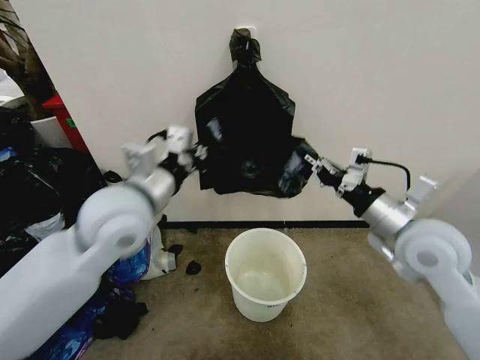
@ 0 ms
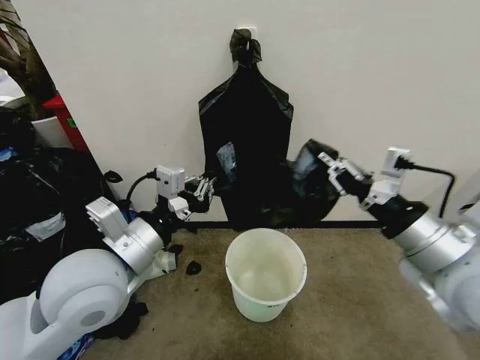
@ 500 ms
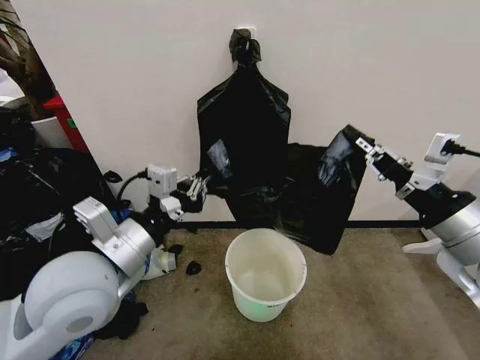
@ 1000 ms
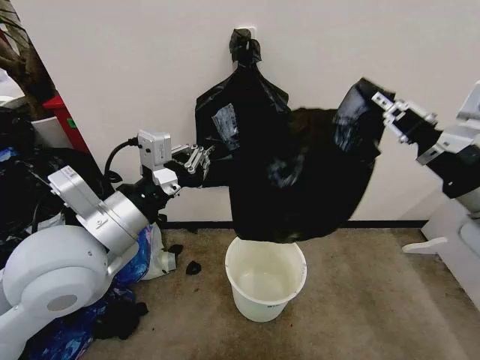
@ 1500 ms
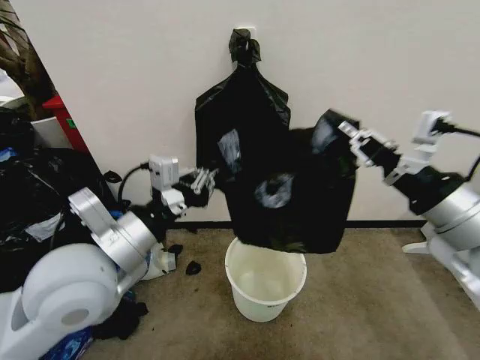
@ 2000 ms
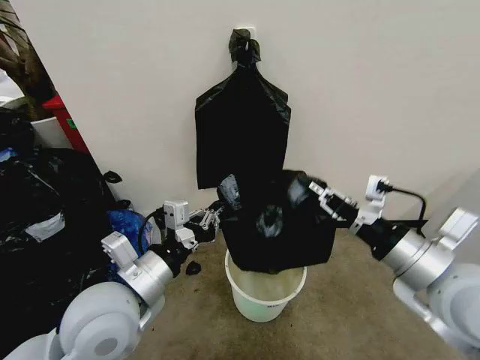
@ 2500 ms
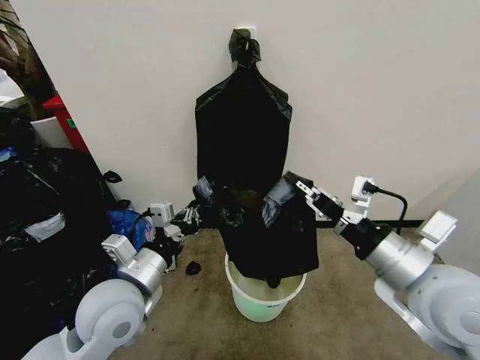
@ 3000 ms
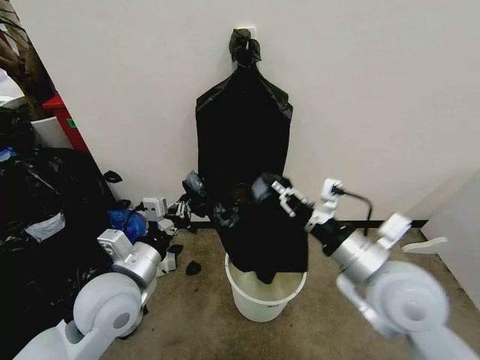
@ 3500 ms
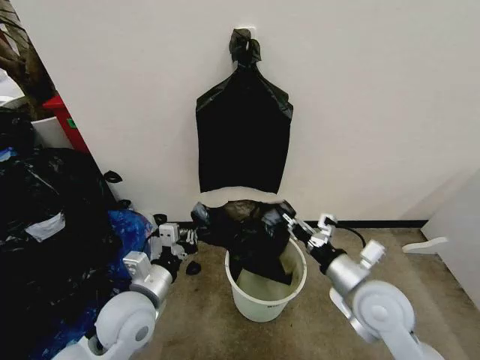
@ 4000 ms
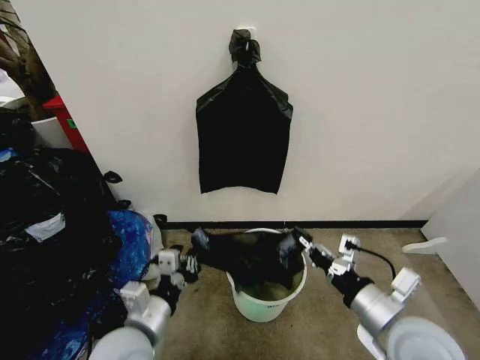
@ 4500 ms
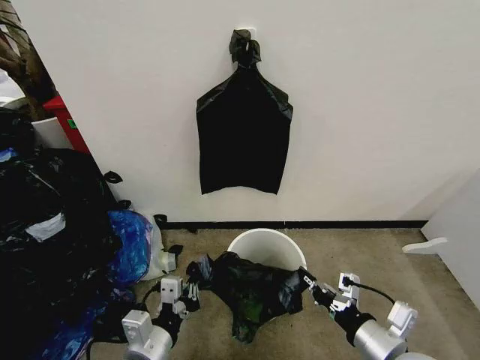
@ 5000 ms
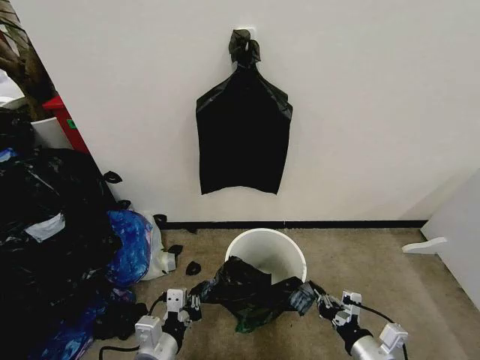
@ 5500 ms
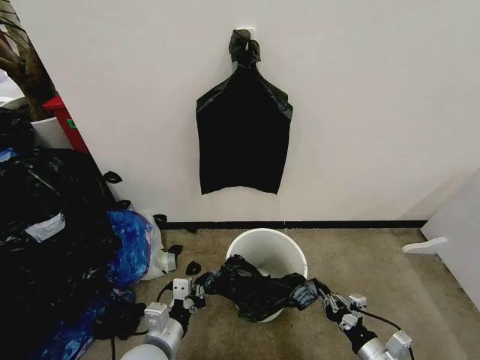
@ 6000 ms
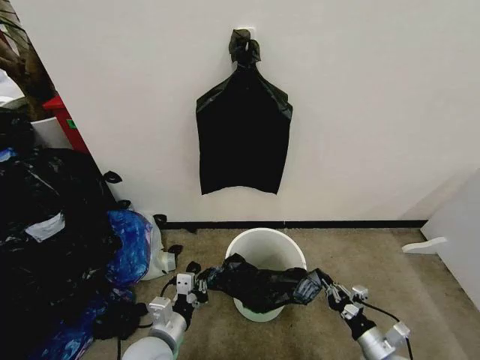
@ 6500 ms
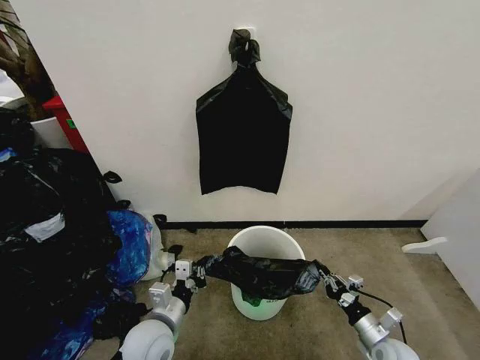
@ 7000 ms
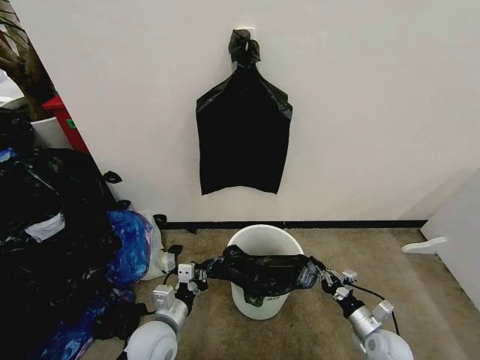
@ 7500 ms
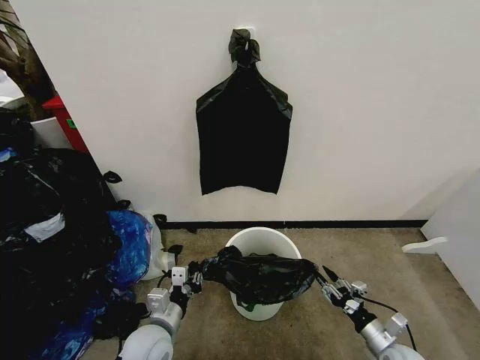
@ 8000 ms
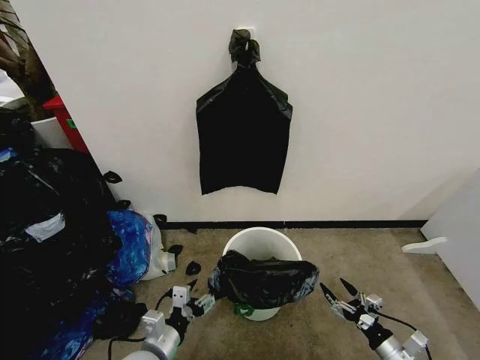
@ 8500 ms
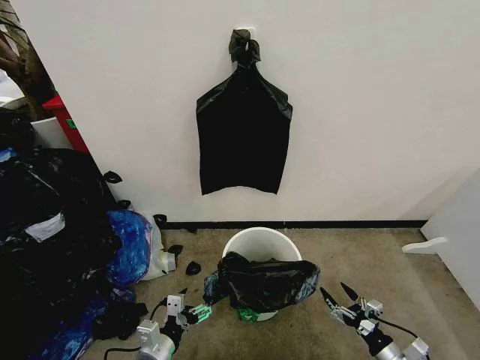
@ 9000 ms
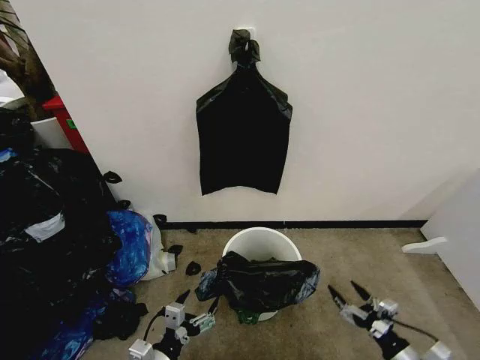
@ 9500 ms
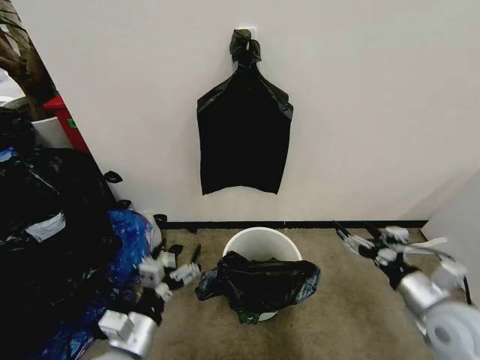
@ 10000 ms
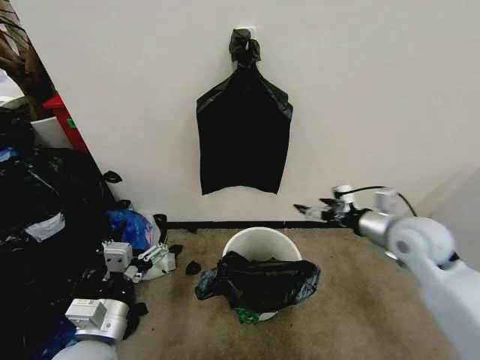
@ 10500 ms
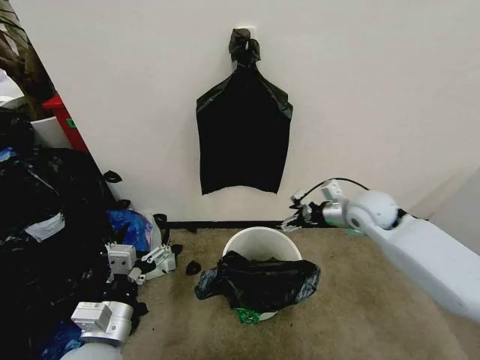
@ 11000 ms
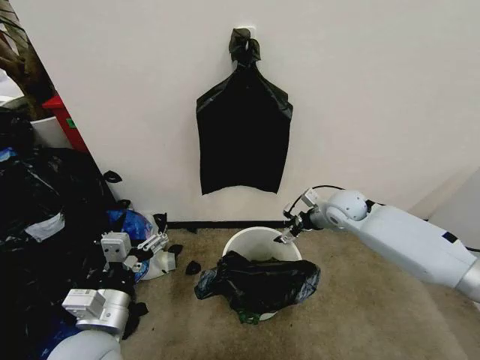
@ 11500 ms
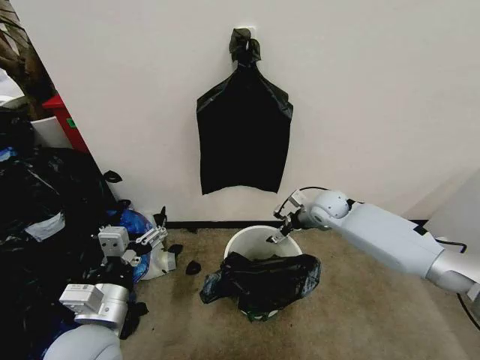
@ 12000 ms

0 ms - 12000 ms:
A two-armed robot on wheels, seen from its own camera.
Task of the whole recording: Place the garbage bag over the trash bin.
0 ms - 2000 ms: The left gripper shifts roughly 10 cm backward. The right gripper travels upward and backward by roughly 10 cm.
2000 ms - 4000 ms: Both grippers move downward, about 20 cm.
4000 ms - 6000 ms: The left gripper heads downward and backward, covering about 10 cm; the right gripper travels downward, backward and to the right by some 25 cm.
6000 ms - 8000 ms: The right gripper moves downward, forward and to the right, roughly 10 cm, and opens, while the left gripper ends up about 5 cm from where it was.
8000 ms - 10000 ms: The right gripper is displaced upward by about 25 cm, and opens; the left gripper goes some 10 cm upward and backward, and opens up.
10000 ms - 12000 ms: The left gripper travels upward by approximately 5 cm. Meanwhile the right gripper heads forward and to the left, covering approximately 35 cm.

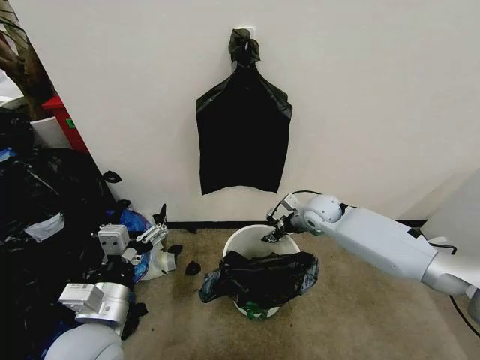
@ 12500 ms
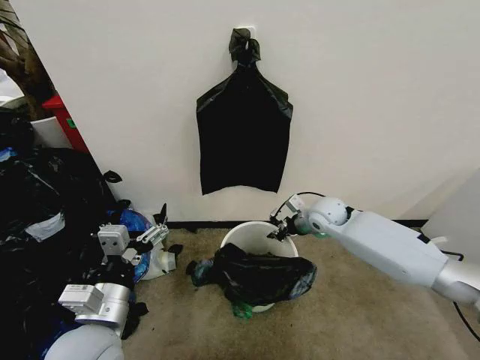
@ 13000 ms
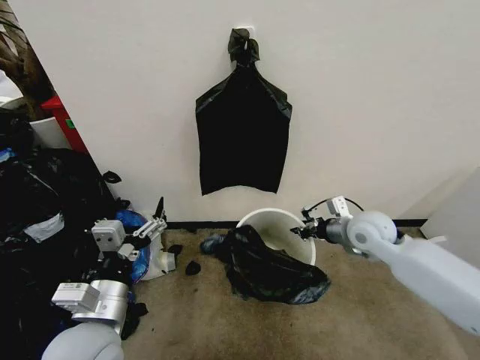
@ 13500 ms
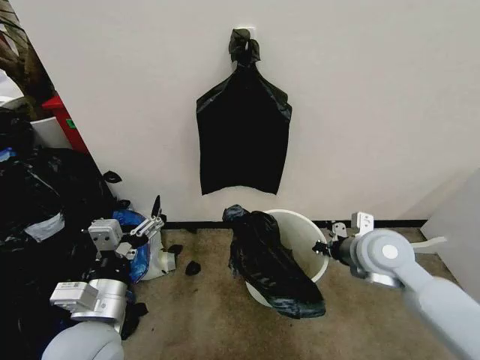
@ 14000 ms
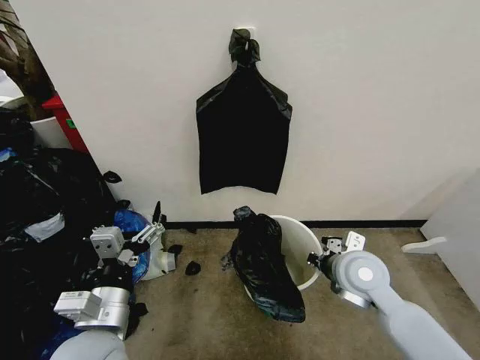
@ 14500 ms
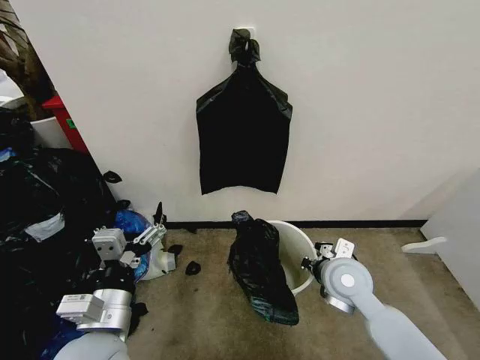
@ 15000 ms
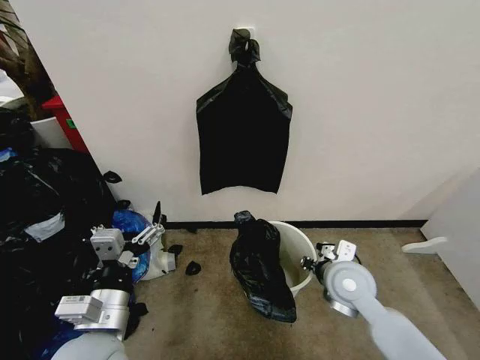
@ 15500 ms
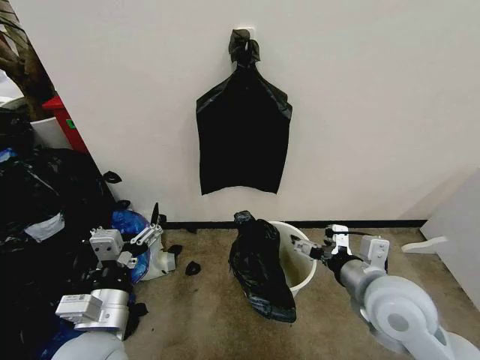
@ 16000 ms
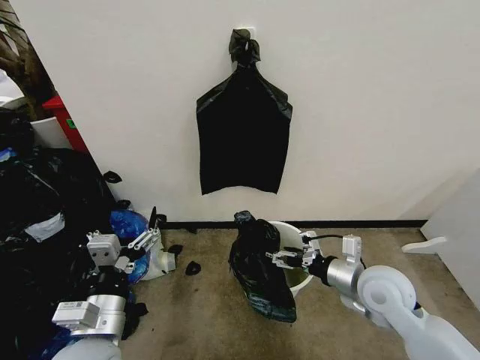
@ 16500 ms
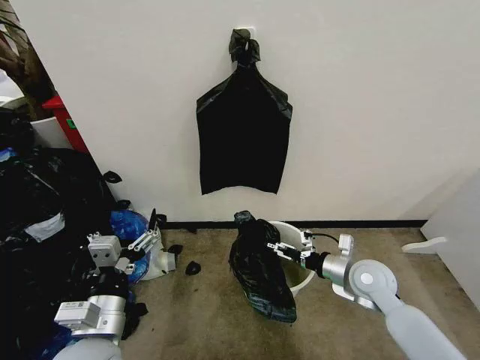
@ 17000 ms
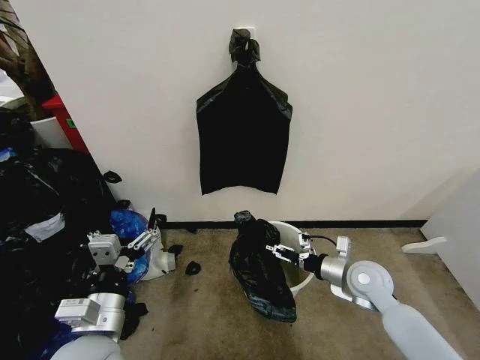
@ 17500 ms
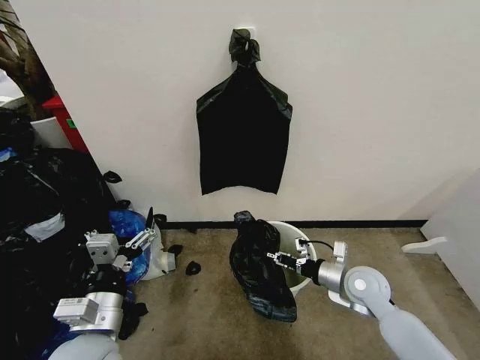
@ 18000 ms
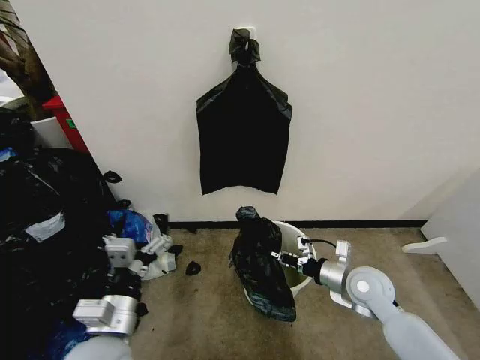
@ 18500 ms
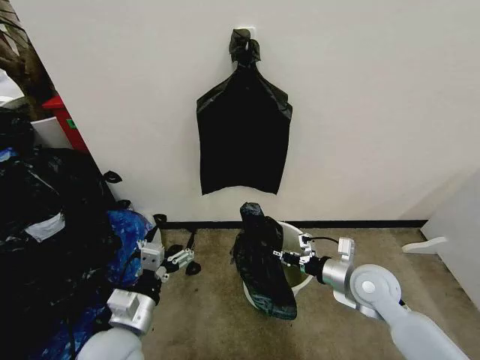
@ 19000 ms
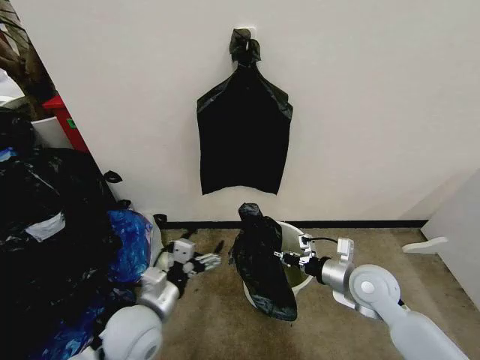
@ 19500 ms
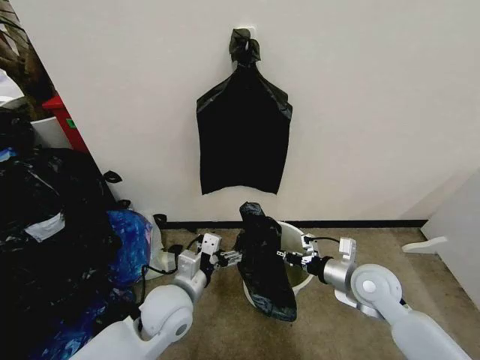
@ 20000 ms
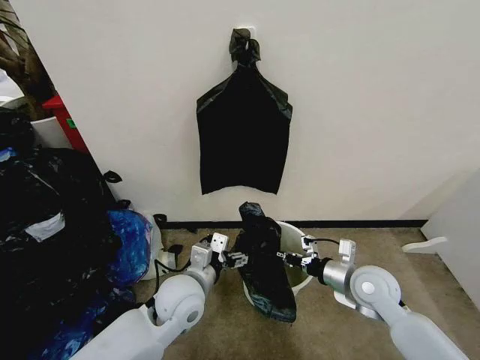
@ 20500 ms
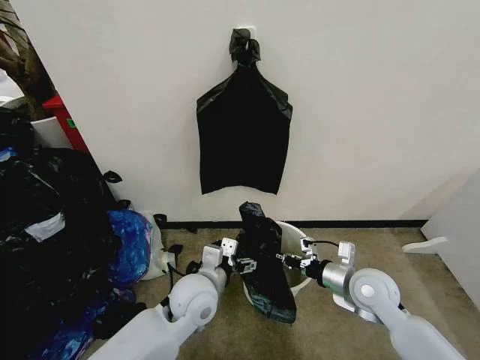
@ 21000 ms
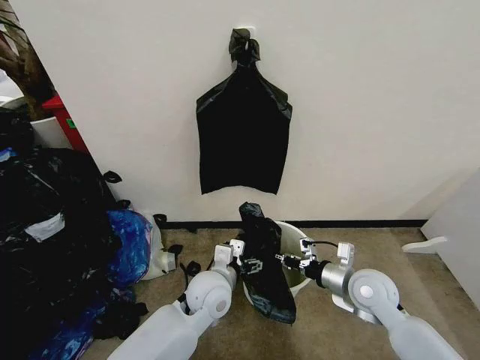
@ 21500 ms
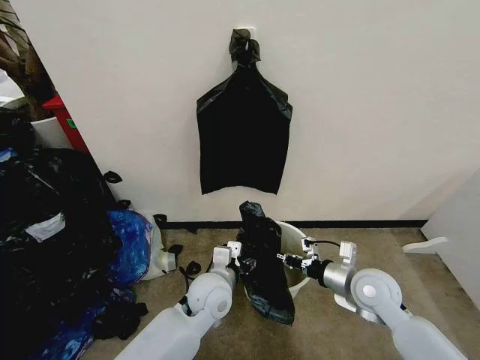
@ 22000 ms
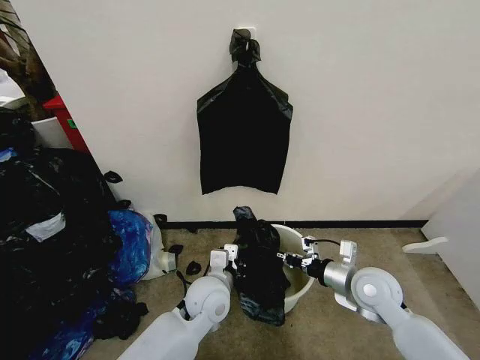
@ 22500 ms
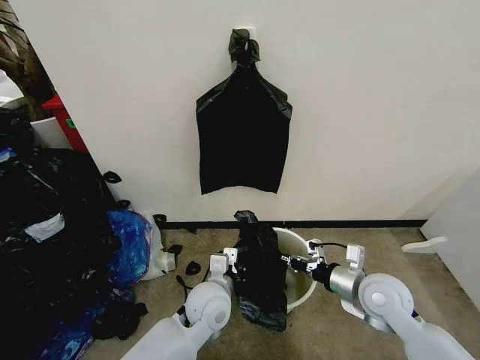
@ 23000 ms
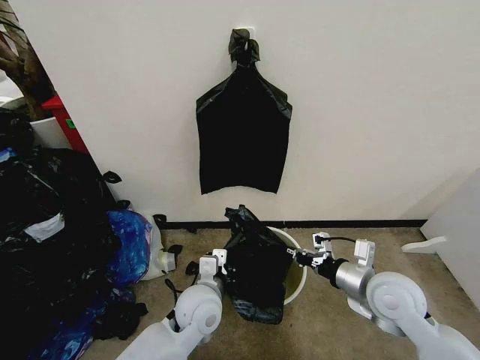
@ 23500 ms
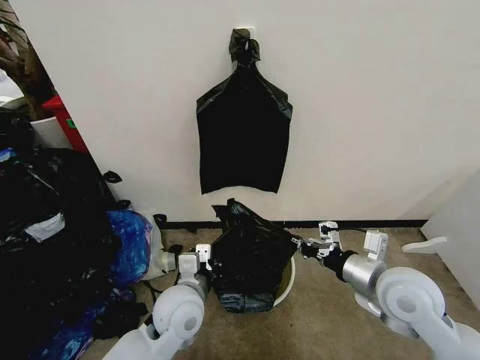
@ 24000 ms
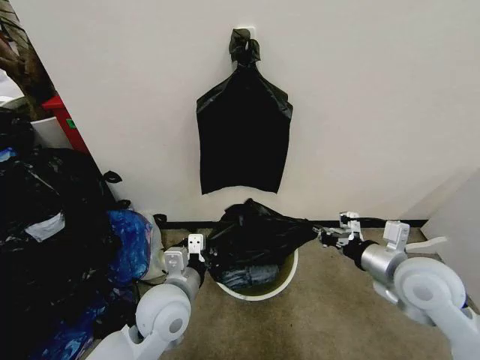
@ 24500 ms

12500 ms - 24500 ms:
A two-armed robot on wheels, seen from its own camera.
Task of the whole recording: Place the garbage bag over the trash bin.
12500 ms - 14500 ms: The right gripper heads backward, covering approximately 20 cm, and closes up.
14500 ms - 16500 ms: The right gripper travels upward and back again, about 5 cm each way, and opens up.
16500 ms - 18500 ms: The right gripper heads downward, covering roughly 10 cm, and closes its fingers.
18500 ms - 20500 ms: The left gripper shifts some 15 cm forward and to the right.
20500 ms - 22500 ms: The left gripper shifts about 10 cm to the right and downward, and closes its fingers.
22500 ms - 24500 ms: The right gripper heads upward, covering some 10 cm. The left gripper shifts about 10 cm to the left and upward.

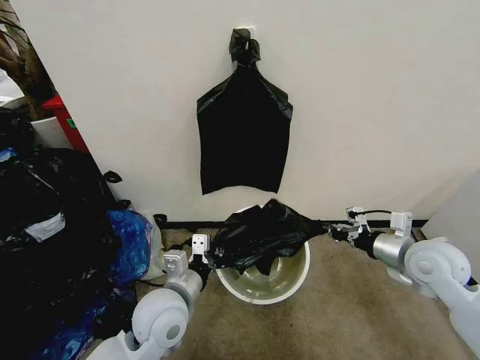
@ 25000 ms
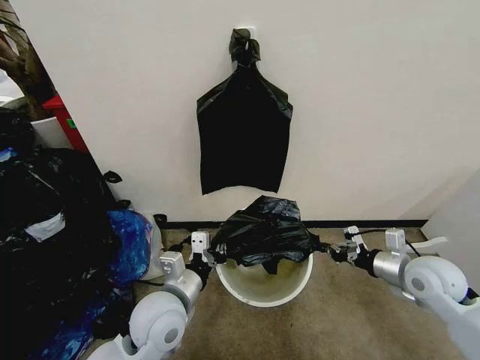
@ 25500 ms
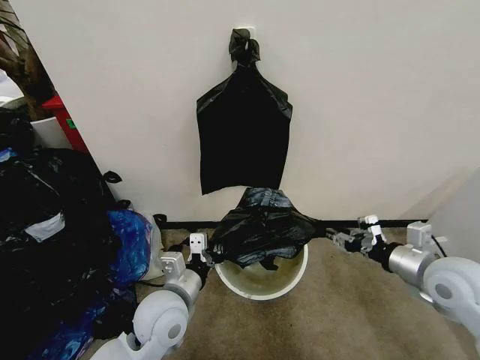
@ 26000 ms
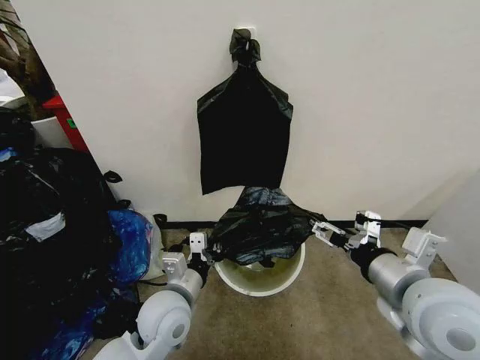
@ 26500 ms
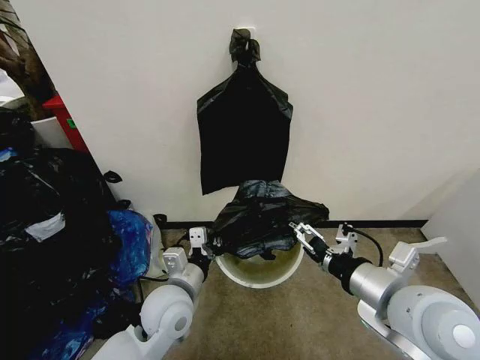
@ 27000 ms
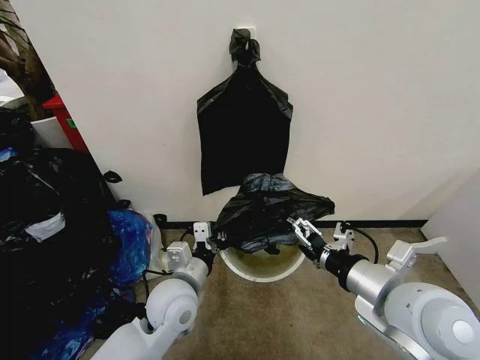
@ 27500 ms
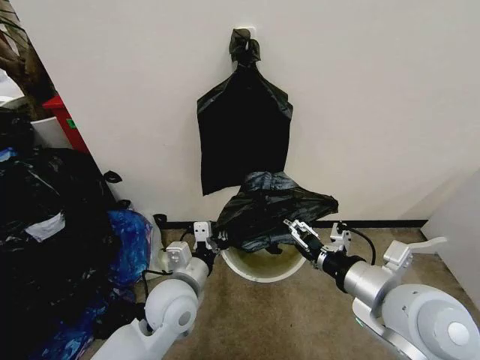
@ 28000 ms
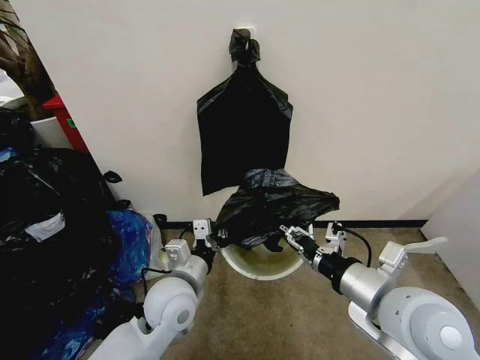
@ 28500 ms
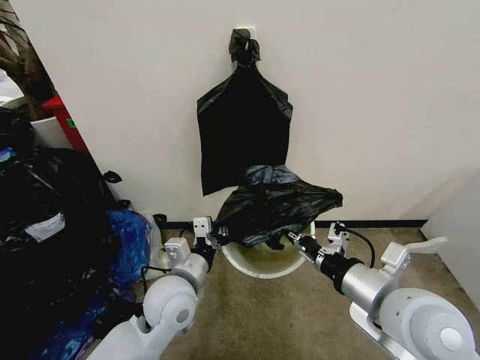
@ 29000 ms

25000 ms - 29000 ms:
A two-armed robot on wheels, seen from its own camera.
Task of the whole recording: Place the garbage bag over the trash bin.
25000 ms - 27000 ms: The right gripper moves to the left, backward and upward, about 20 cm, and opens.
27000 ms - 29000 ms: The right gripper closes its fingers.
